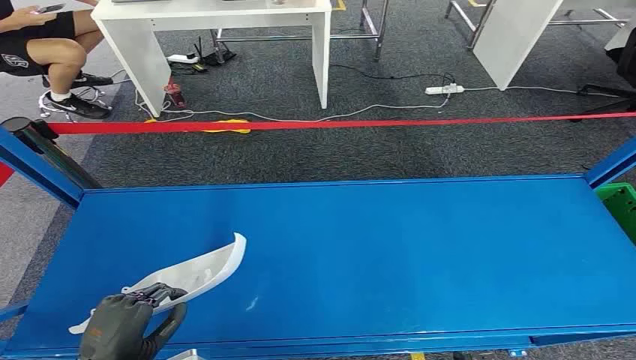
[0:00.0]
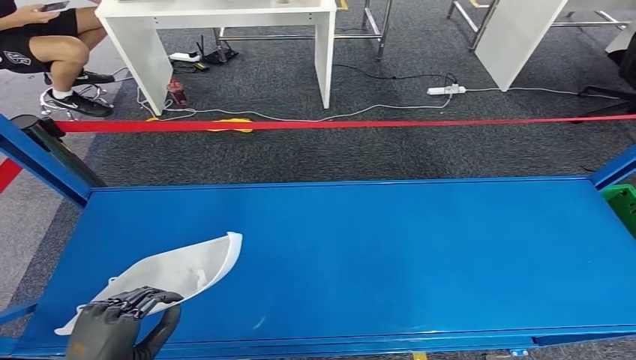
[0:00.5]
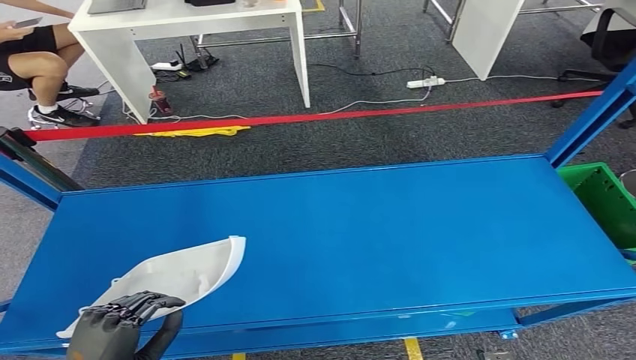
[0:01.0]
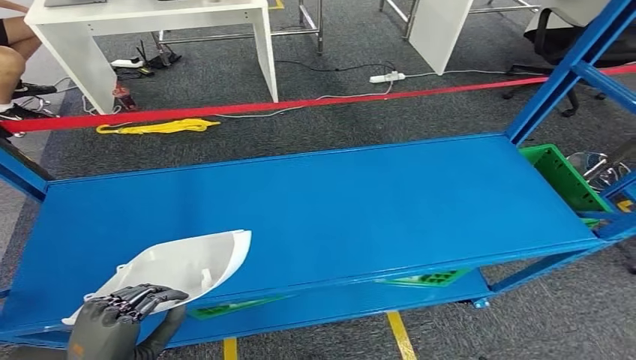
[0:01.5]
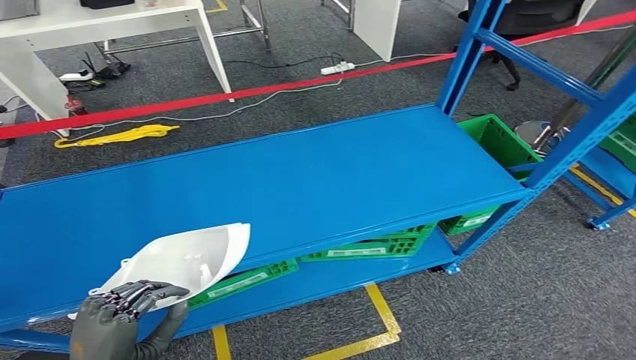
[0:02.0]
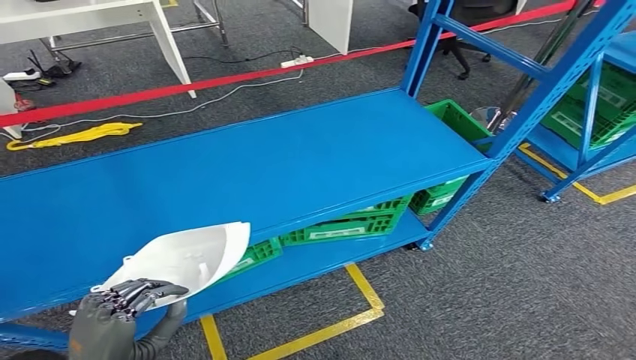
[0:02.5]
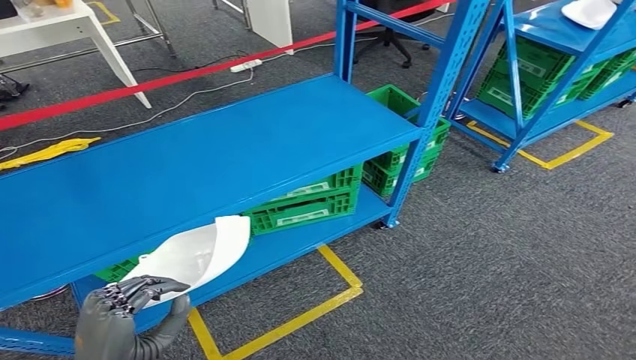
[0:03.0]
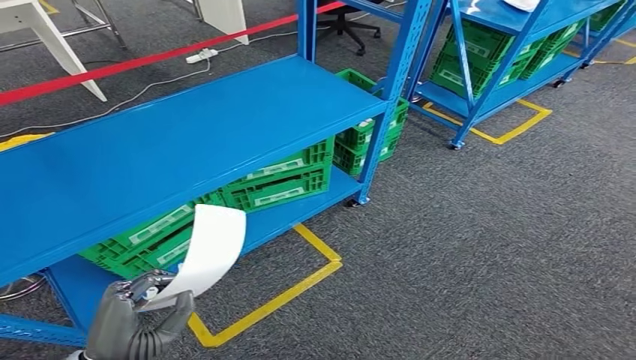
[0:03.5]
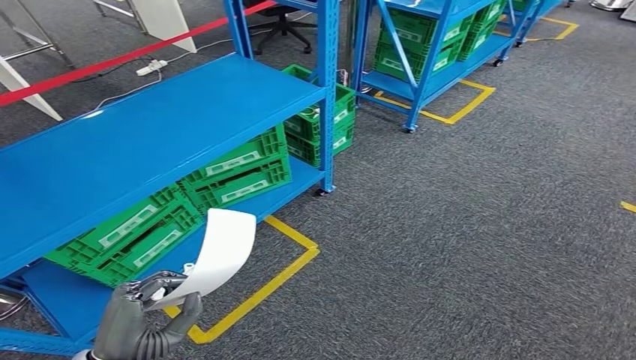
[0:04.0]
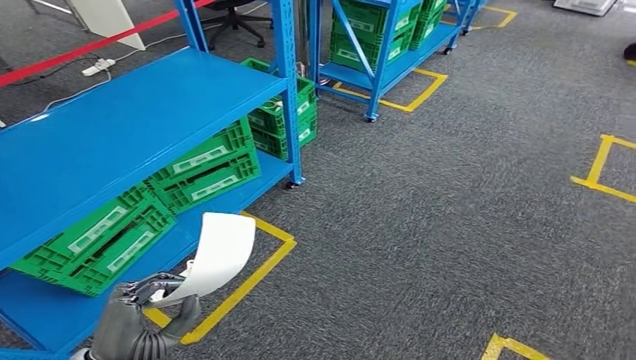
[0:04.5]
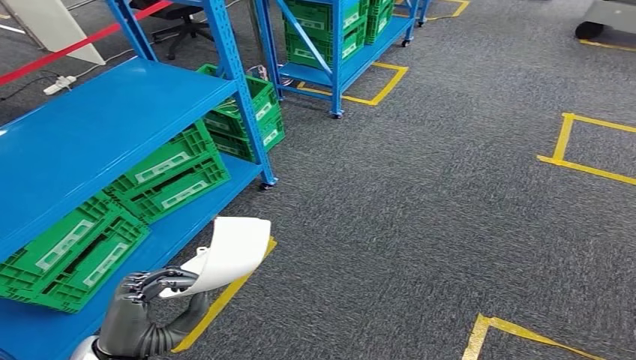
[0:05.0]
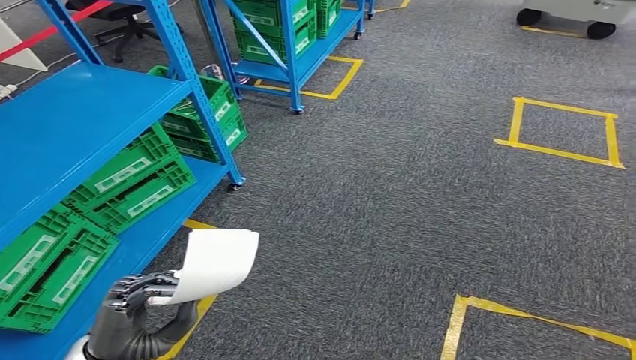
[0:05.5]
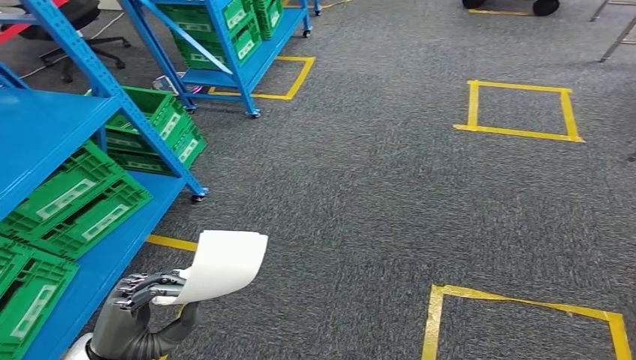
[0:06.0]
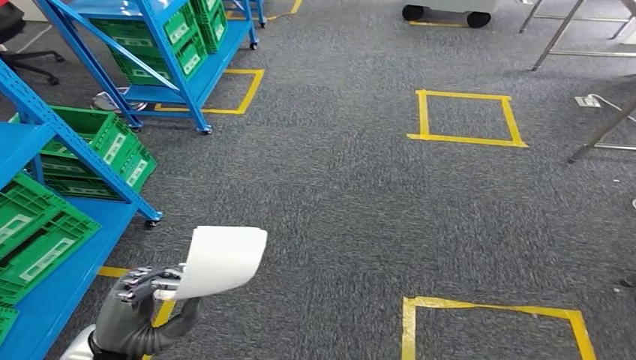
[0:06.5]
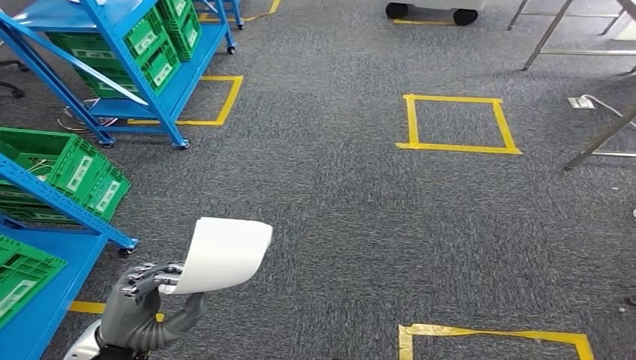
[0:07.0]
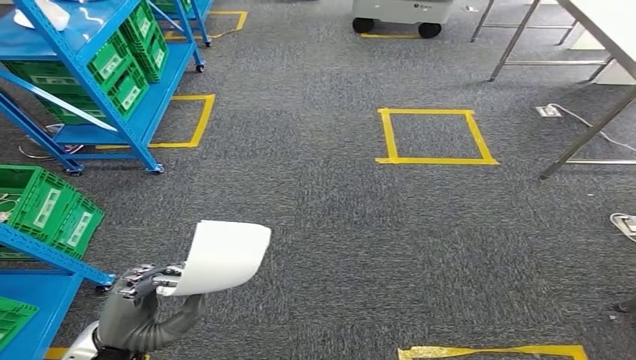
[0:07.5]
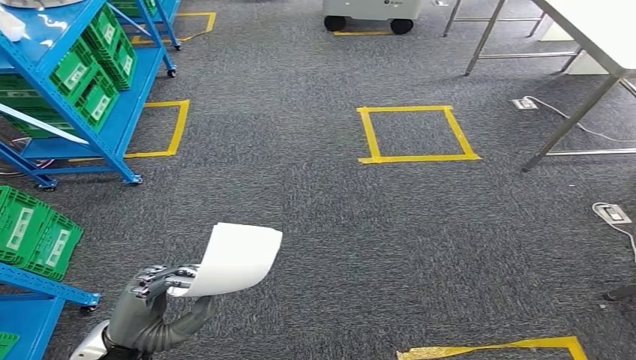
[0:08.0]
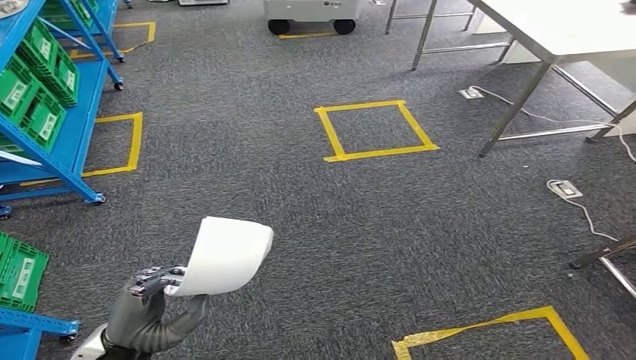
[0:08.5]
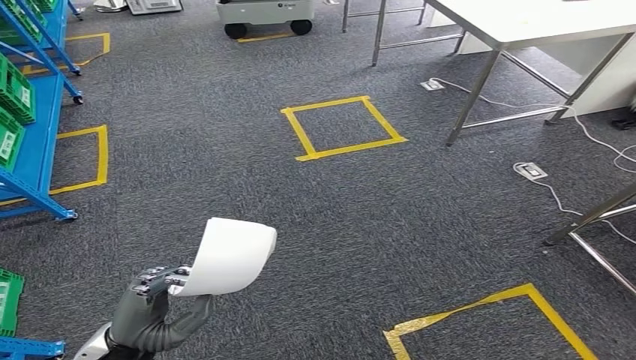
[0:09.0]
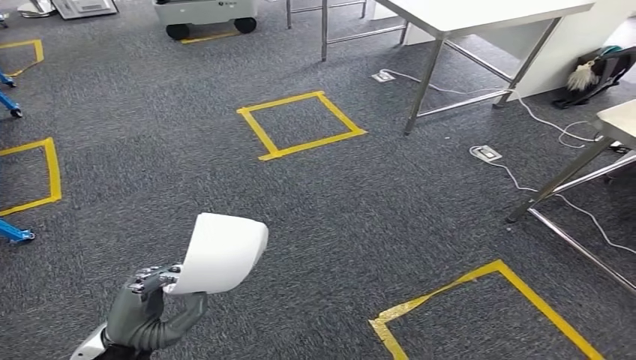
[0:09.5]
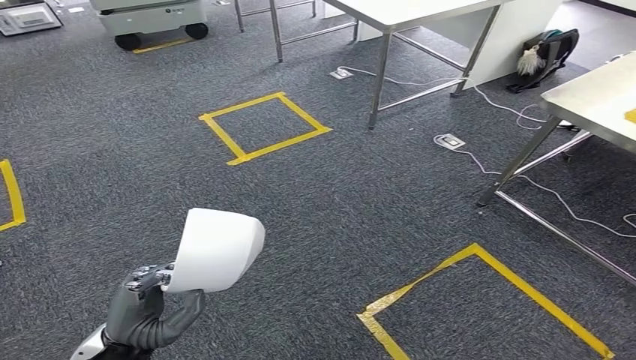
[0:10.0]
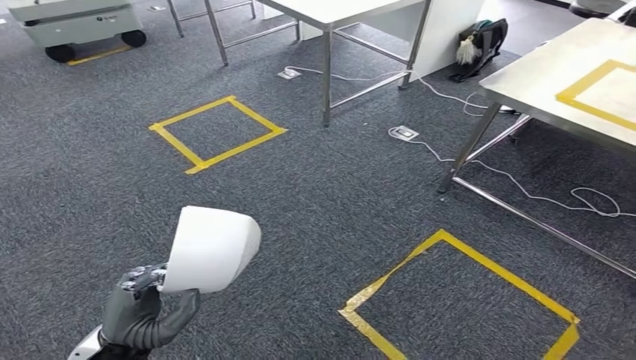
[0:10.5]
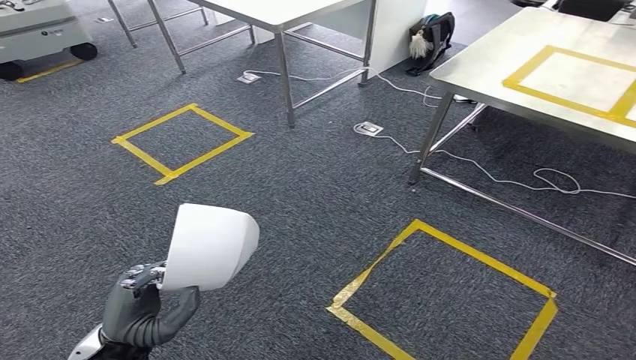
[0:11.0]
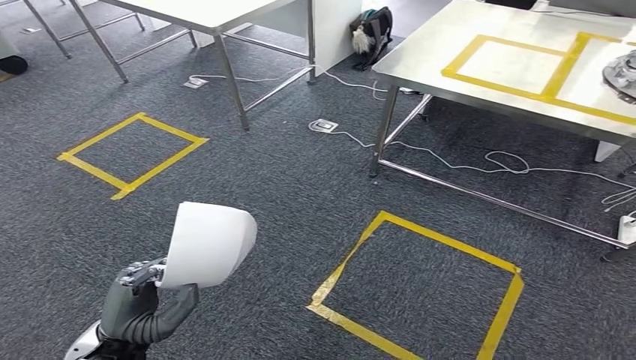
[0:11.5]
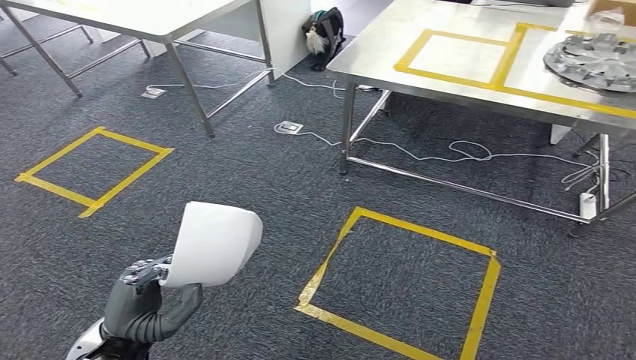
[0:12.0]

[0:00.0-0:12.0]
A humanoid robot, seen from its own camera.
Step, 0:00.0 to 0:02.0: Take small components from the rack.

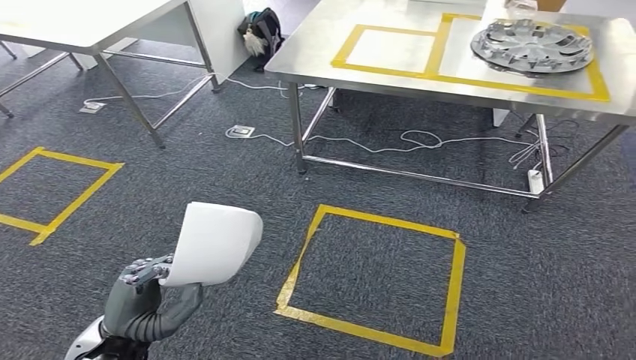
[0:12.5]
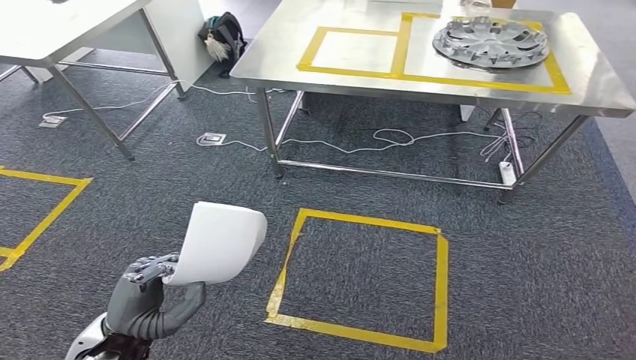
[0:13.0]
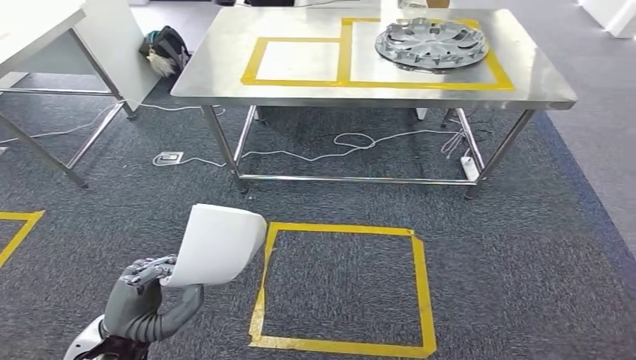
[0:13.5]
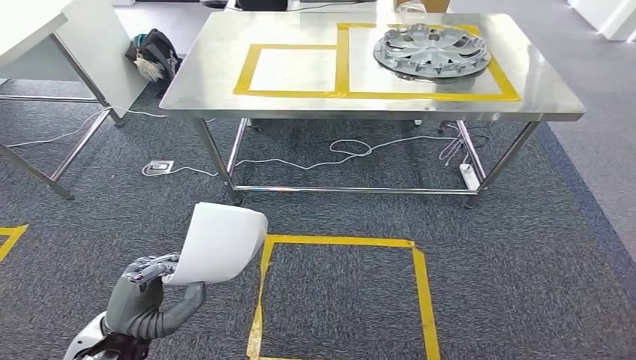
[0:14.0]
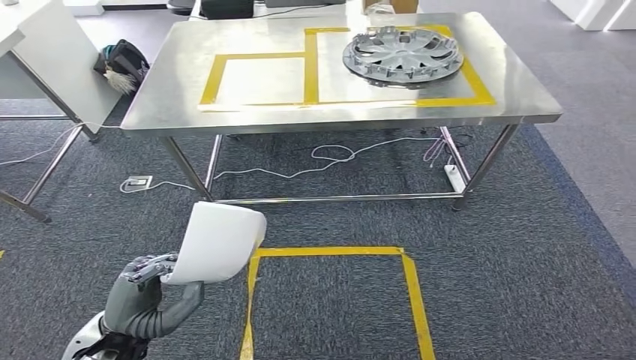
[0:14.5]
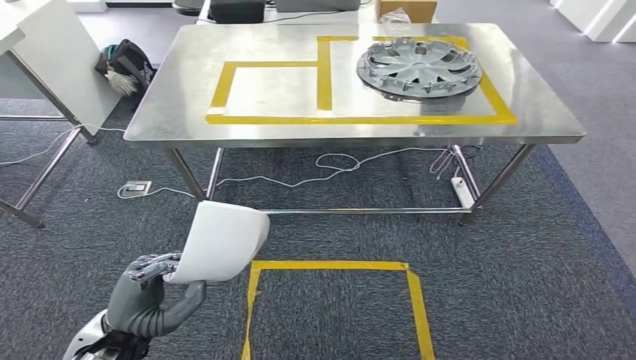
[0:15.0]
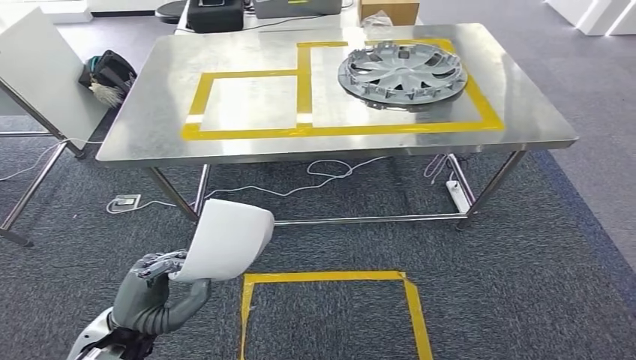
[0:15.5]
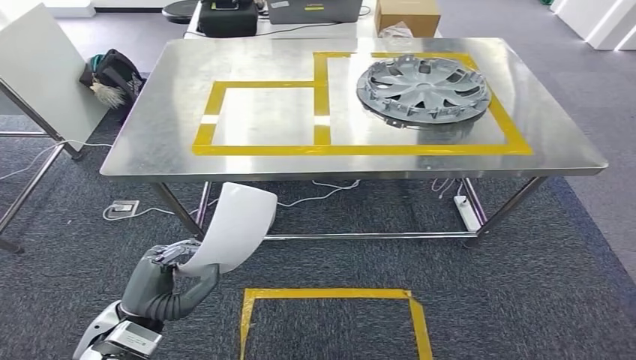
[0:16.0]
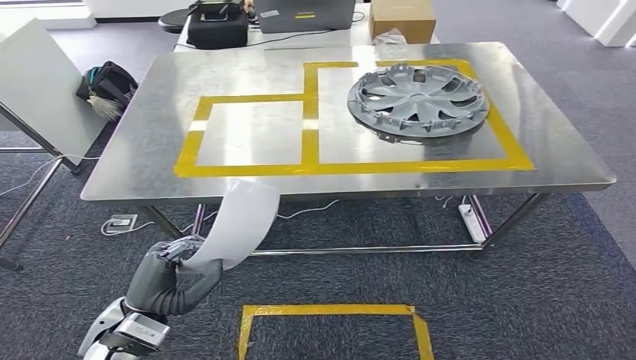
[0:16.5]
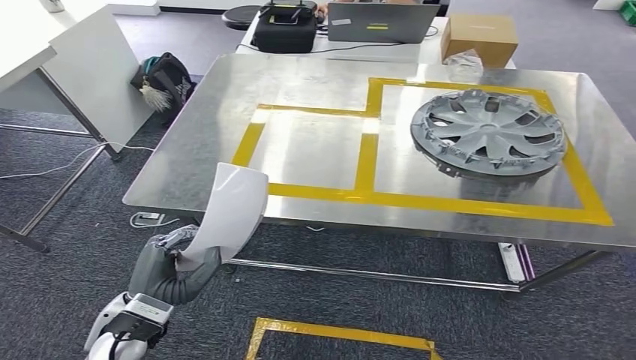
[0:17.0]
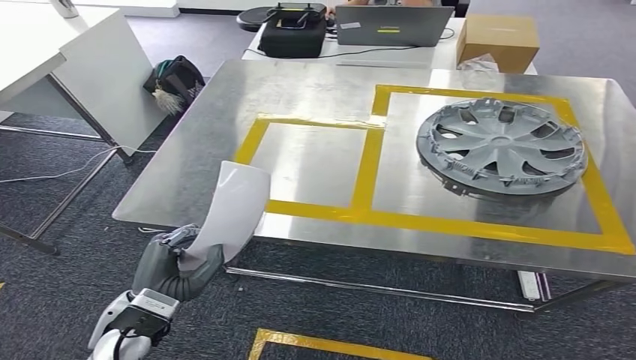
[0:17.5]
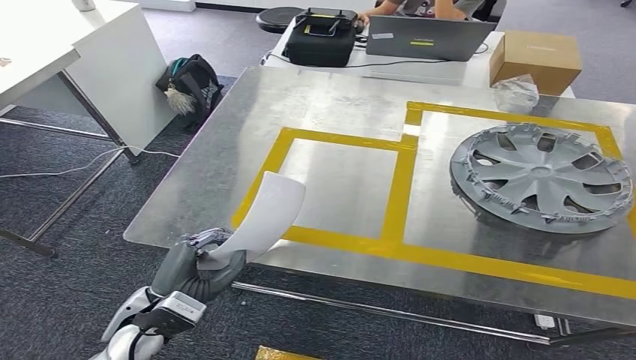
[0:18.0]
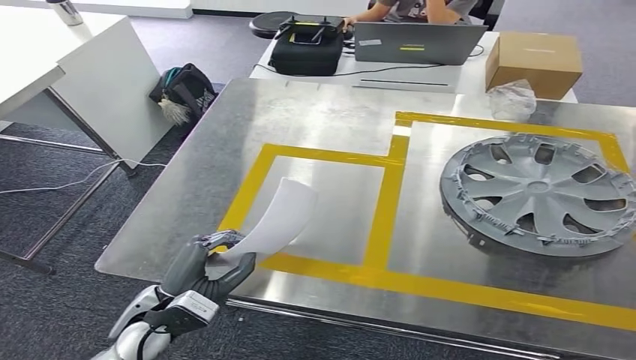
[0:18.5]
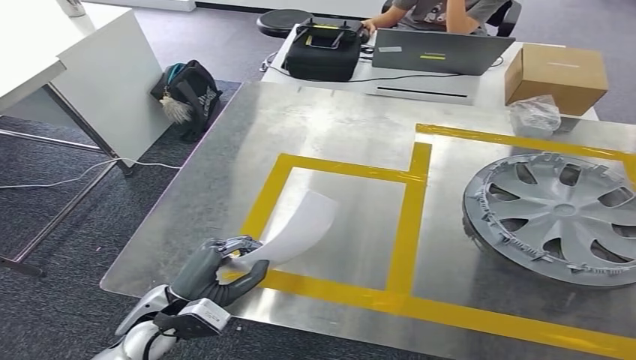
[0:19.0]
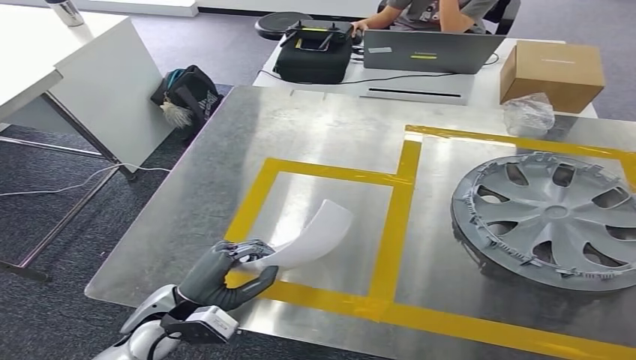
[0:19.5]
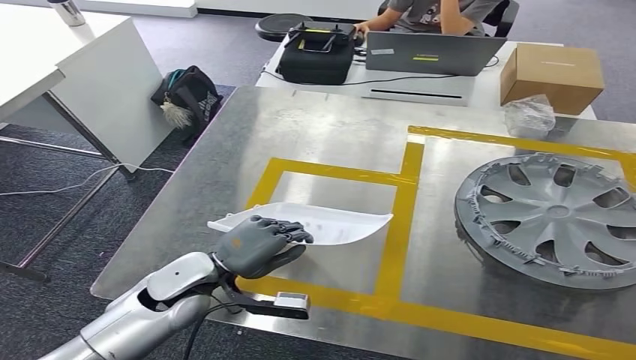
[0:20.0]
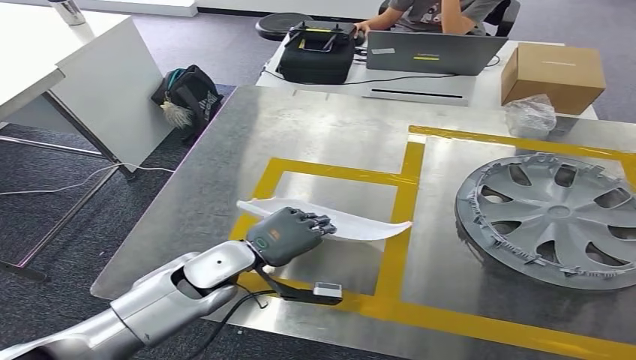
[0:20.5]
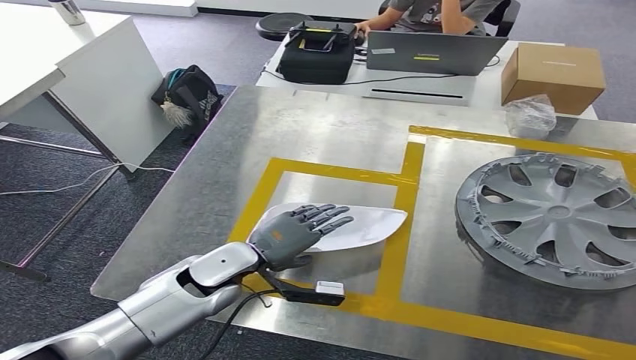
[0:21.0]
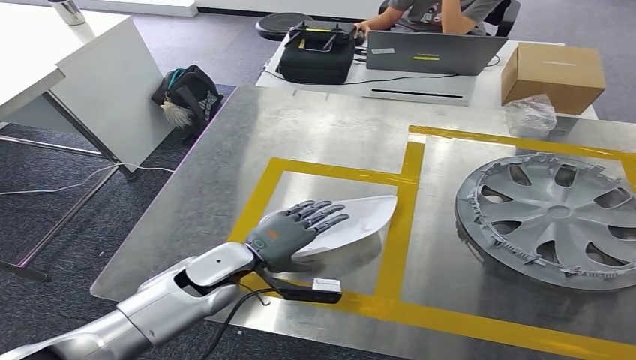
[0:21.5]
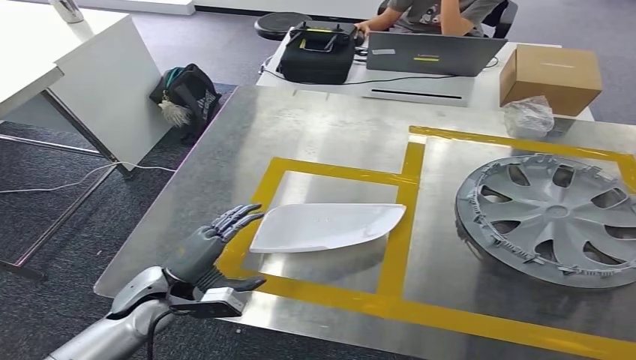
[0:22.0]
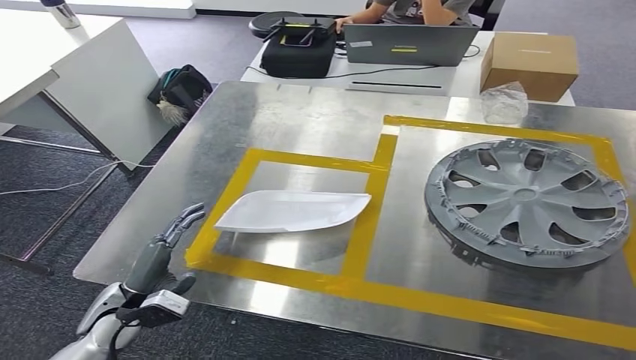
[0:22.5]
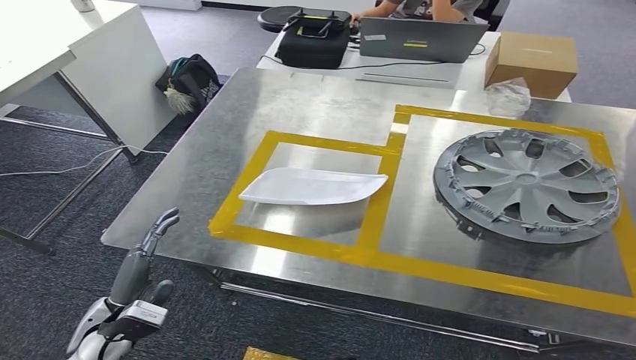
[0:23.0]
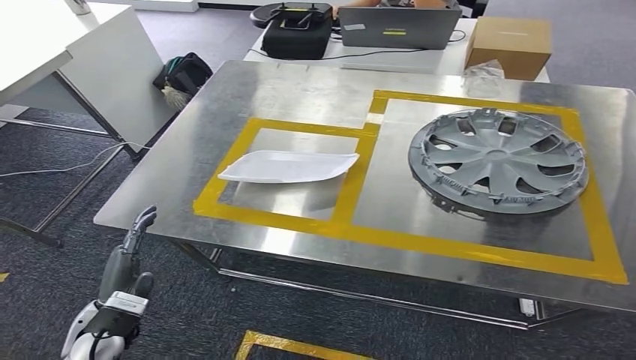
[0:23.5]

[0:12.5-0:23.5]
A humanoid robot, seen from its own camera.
Step, 0:12.5 to 0:16.0: Move the small parts to the workbench.
Step, 0:16.5 to 0:22.5: Insert the small parts into the corresponding holes on the workbench.
